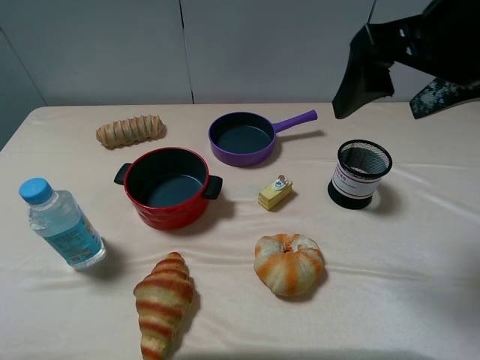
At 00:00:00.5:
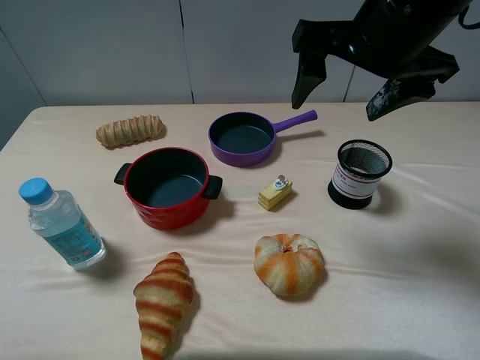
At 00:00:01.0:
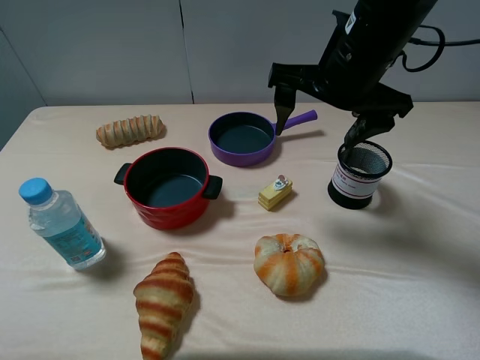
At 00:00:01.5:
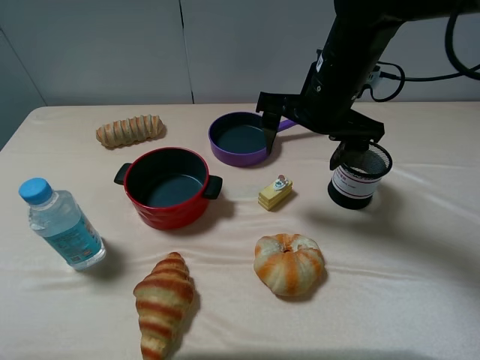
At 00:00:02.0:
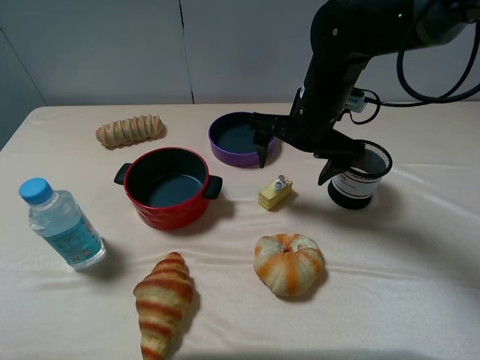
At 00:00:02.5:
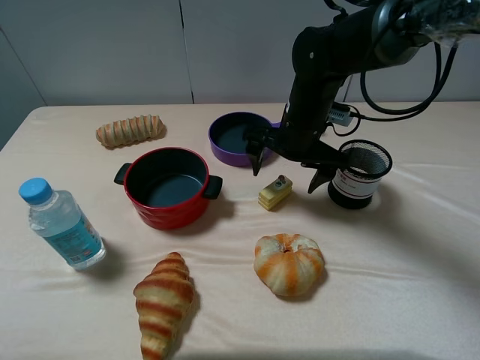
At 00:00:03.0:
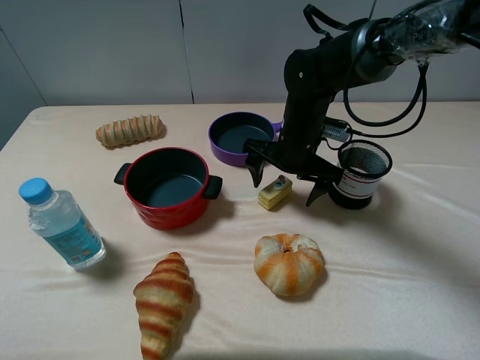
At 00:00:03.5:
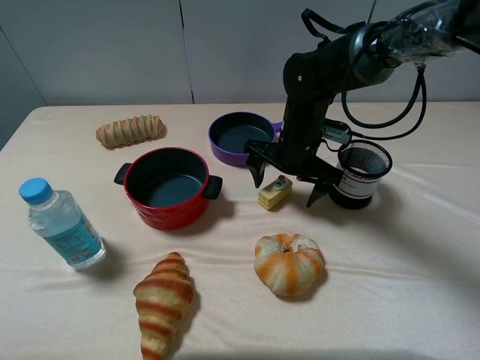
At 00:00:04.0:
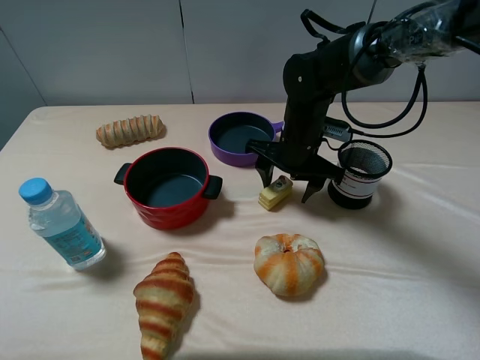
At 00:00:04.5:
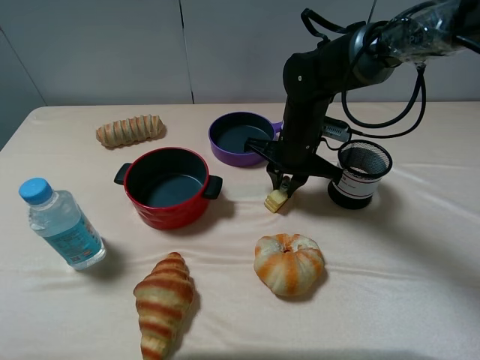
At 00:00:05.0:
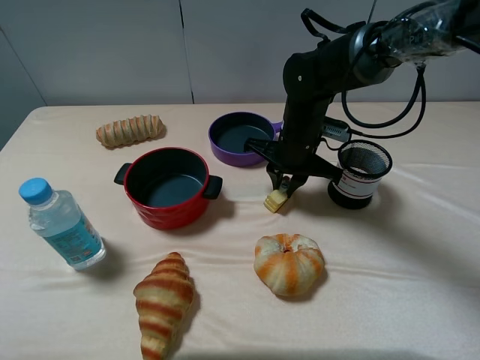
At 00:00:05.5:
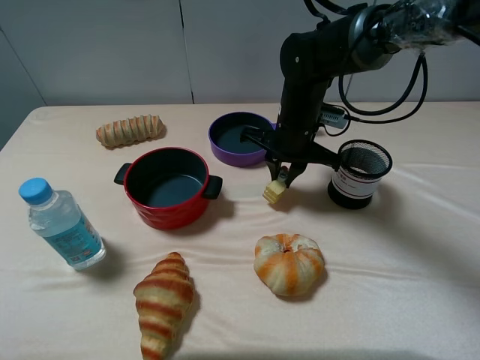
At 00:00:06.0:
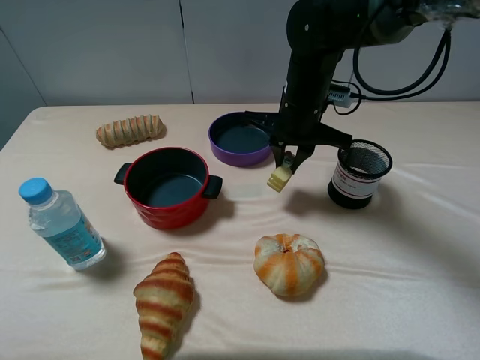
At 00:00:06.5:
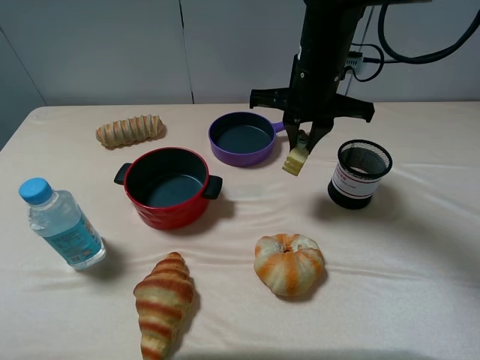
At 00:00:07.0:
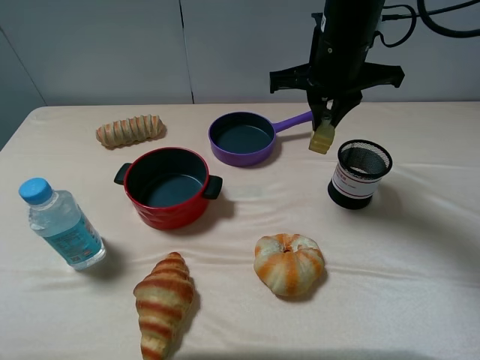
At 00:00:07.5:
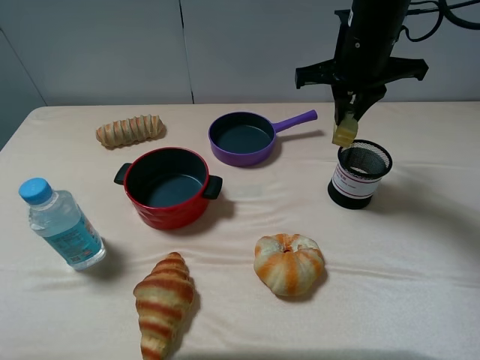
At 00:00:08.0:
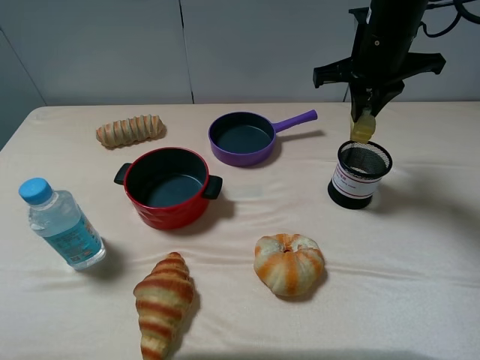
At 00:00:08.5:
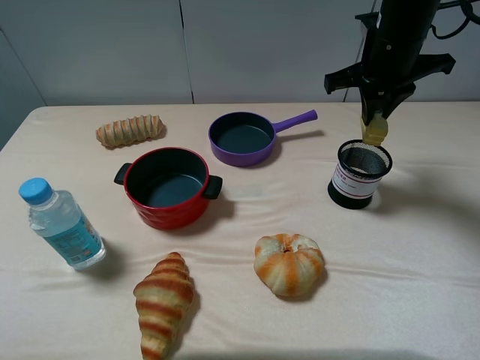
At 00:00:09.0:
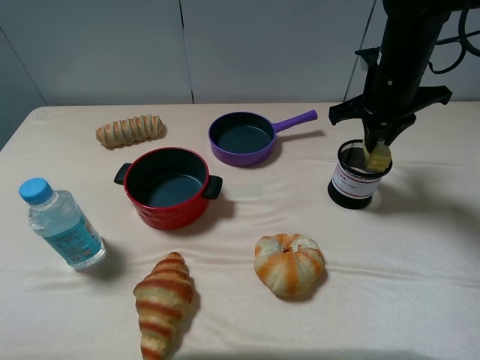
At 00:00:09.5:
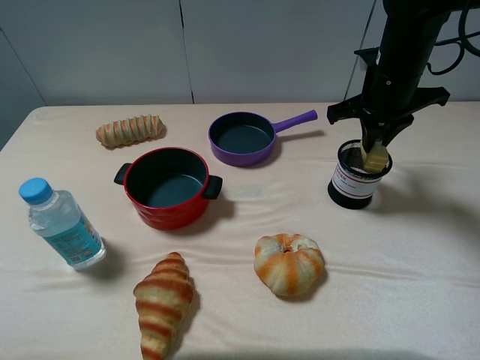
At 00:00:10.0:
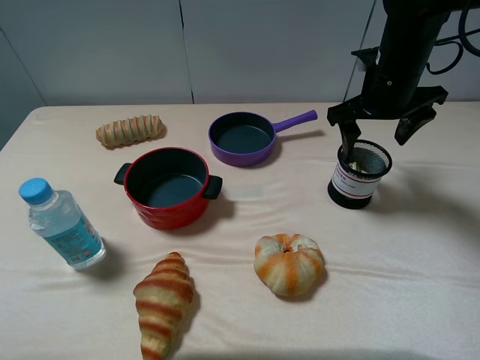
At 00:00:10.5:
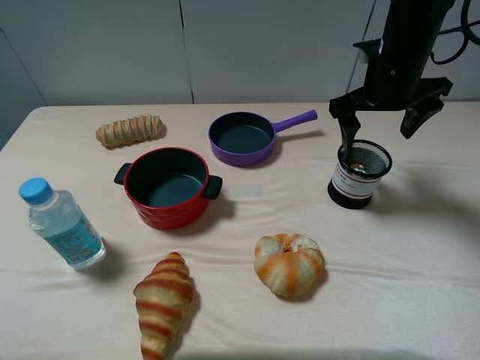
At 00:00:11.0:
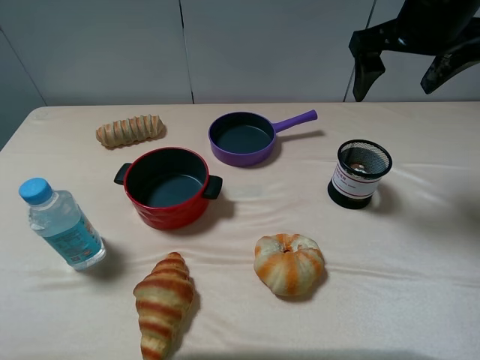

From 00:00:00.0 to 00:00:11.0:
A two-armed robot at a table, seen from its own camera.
Task of the whole recording: pick up an item with a gripper and place it in a random container on the table.
Step, from 00:00:00.0 to 00:00:04.5: Grasp the yellow cake with the right gripper.
Step, from 00:00:05.0 to 00:00:10.5: Place the yellow cake into the pen container with the right gripper.
From 00:00:00.0 to 00:00:02.0: The right gripper travels downward, forward and to the left by some 20 cm.
From 00:00:02.0 to 00:00:03.5: The right gripper travels downward by some 5 cm.
From 00:00:03.5 to 00:00:05.5: The right gripper closes its fingers.
From 00:00:05.5 to 00:00:07.5: The right gripper heads upward and to the right, covering roughly 15 cm.
From 00:00:07.5 to 00:00:09.0: The right gripper ends up roughly 5 cm from where it was.
From 00:00:09.0 to 00:00:11.0: The right gripper shifts approximately 10 cm upward, and opens its fingers.

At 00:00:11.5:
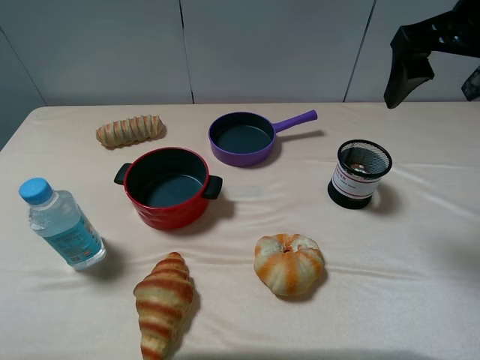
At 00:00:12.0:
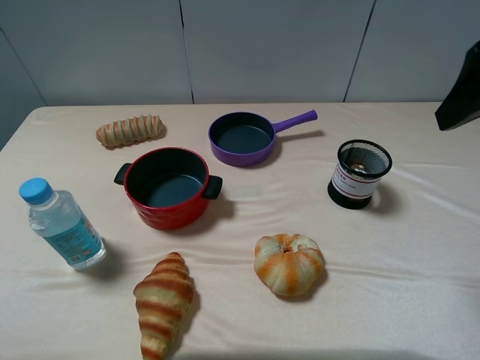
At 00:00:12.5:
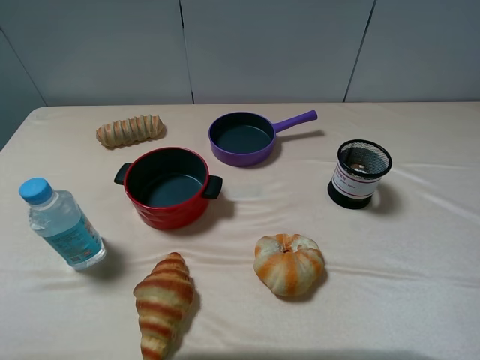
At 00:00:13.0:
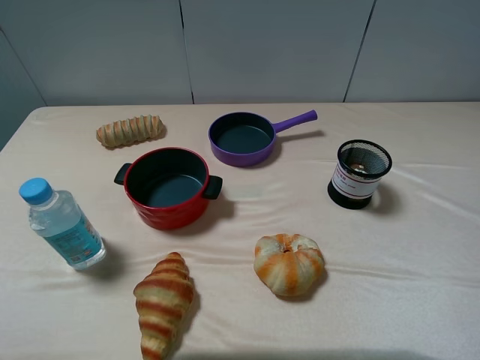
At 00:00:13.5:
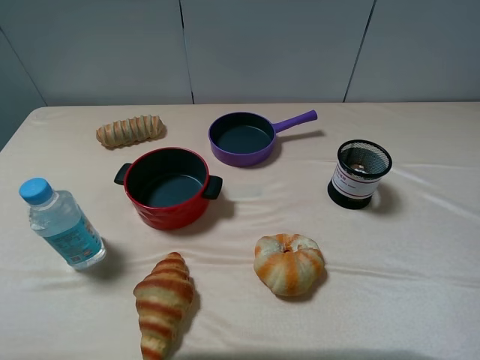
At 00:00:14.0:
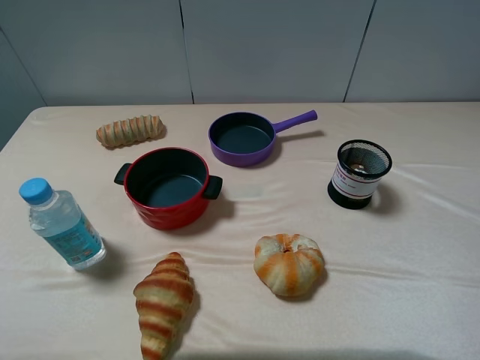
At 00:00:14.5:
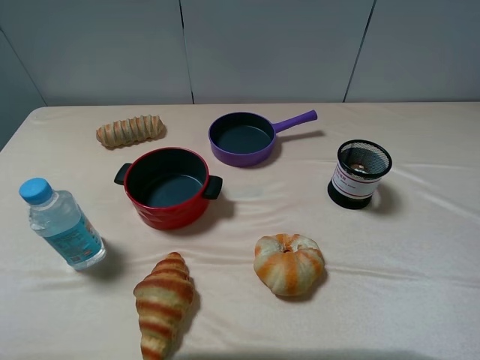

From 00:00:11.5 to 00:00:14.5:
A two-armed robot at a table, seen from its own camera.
Task of the whole recording: pick up an item with a gripper and place it in a random container on the table.
From 00:00:11.5 to 00:00:13.0: The right gripper moves backward, about 25 cm.
